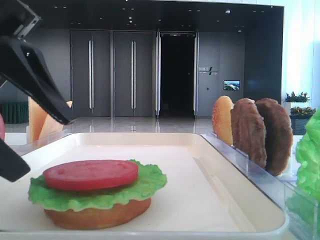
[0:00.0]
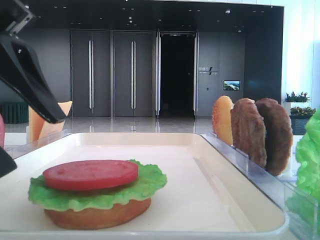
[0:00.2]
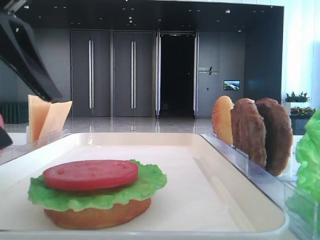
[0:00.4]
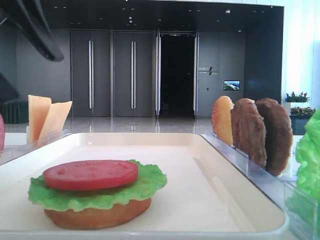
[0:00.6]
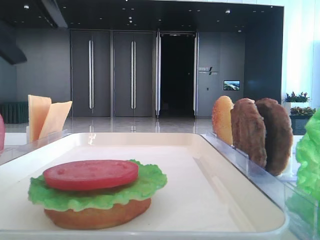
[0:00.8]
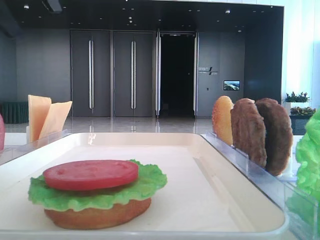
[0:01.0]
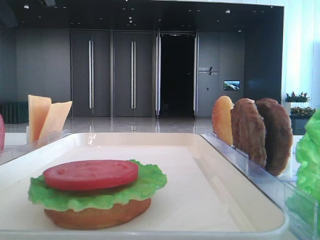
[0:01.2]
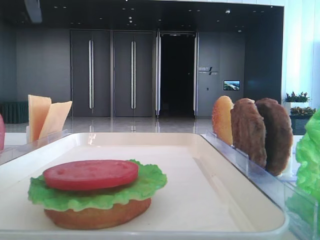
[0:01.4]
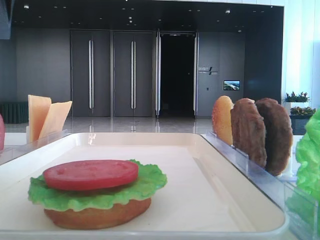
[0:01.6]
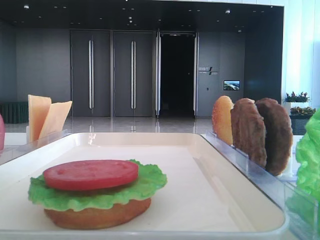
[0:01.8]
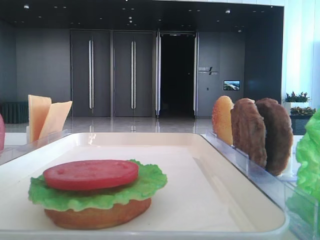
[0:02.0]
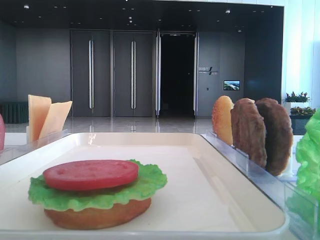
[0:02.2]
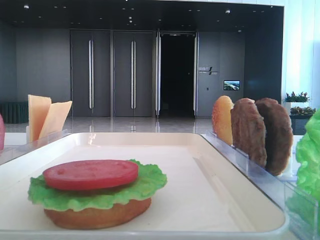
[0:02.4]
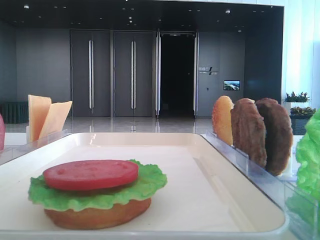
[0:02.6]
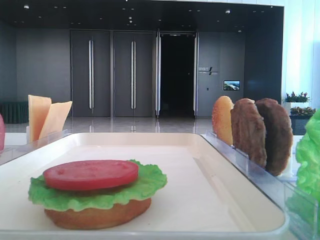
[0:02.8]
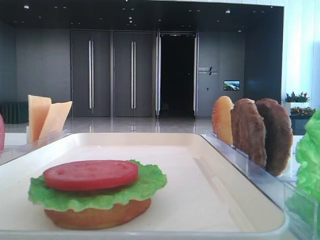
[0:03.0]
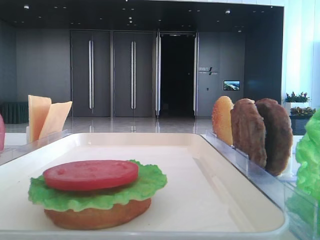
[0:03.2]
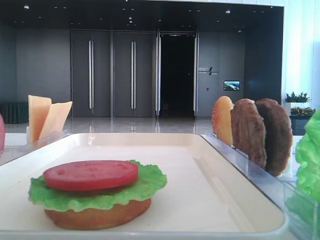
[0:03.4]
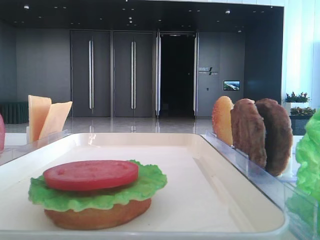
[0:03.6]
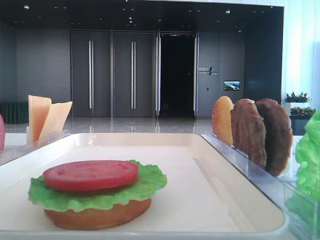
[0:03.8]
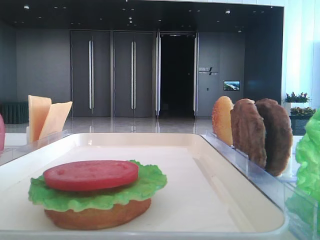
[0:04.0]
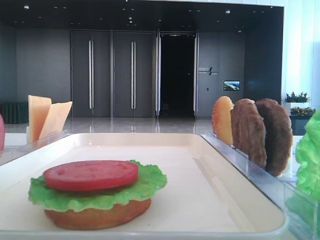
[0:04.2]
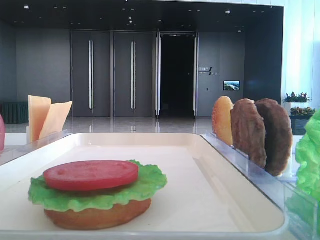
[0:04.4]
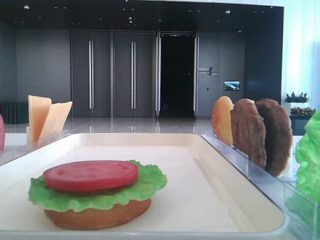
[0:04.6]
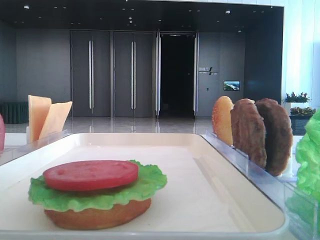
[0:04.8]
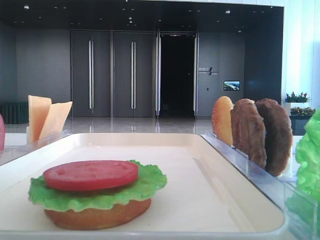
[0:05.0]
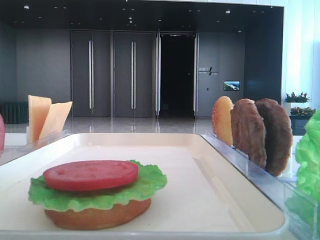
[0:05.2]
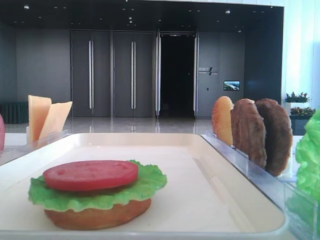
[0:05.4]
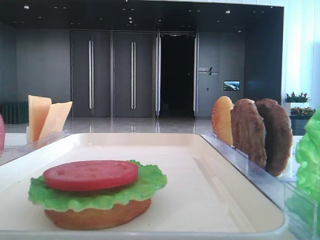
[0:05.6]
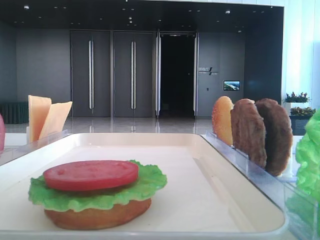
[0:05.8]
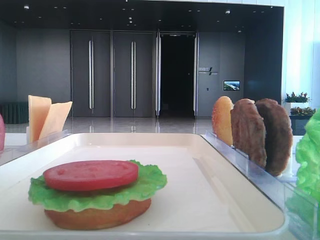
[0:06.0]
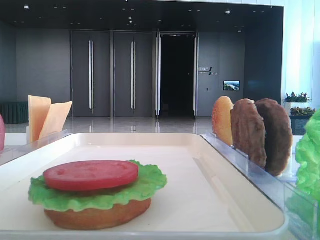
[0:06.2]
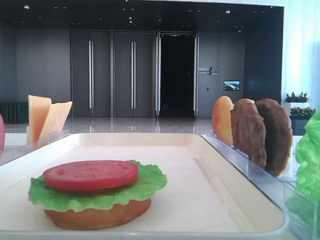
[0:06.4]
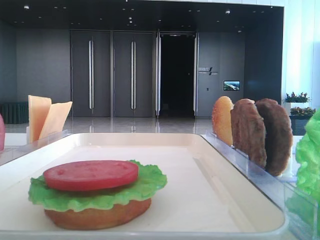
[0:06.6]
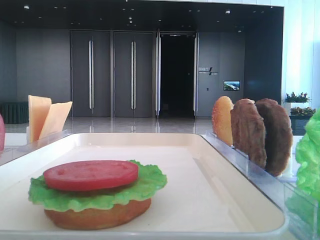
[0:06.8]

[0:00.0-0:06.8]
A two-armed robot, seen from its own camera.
0.0 to 1.4 s: The left gripper moves upward and forward, some 20 cm.

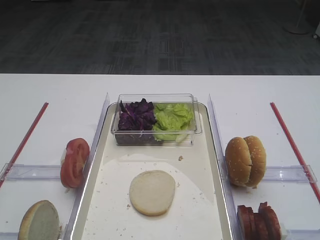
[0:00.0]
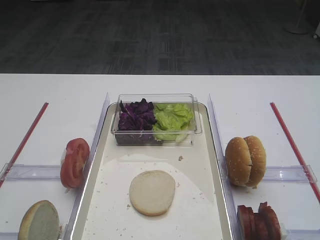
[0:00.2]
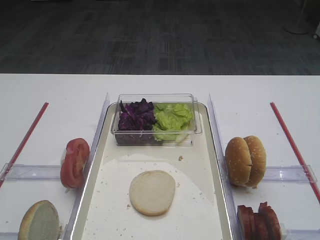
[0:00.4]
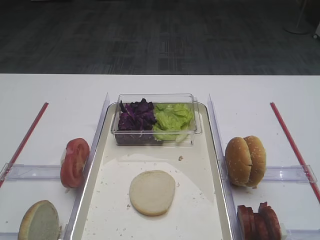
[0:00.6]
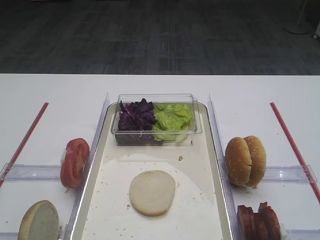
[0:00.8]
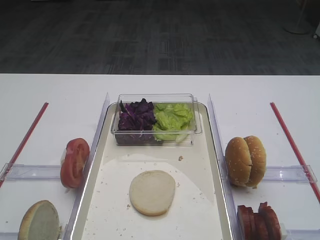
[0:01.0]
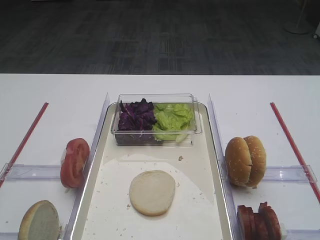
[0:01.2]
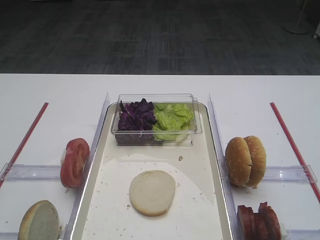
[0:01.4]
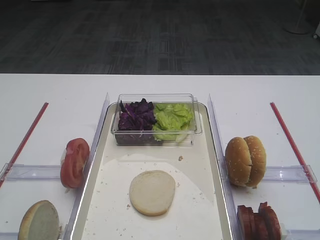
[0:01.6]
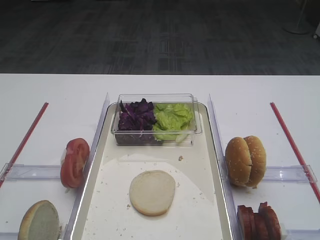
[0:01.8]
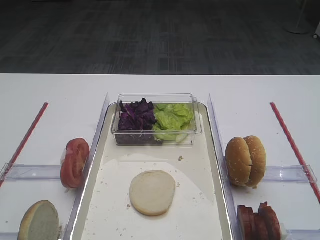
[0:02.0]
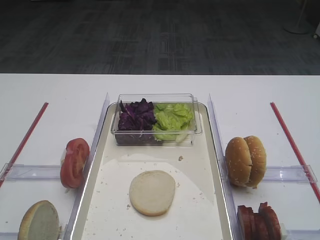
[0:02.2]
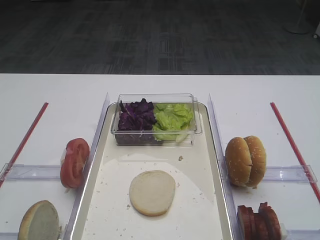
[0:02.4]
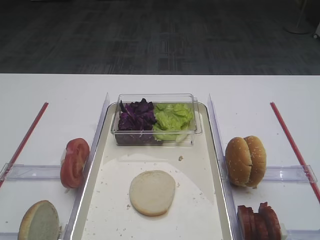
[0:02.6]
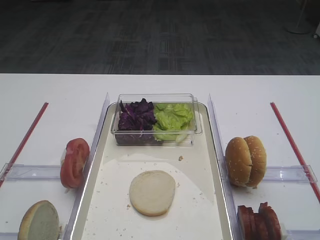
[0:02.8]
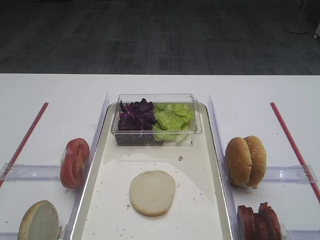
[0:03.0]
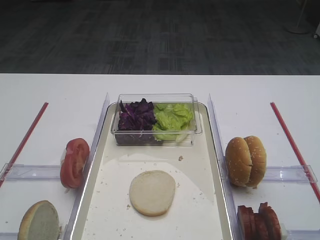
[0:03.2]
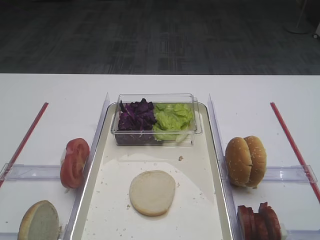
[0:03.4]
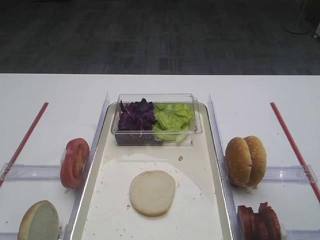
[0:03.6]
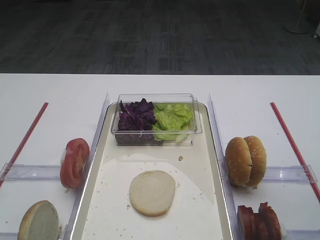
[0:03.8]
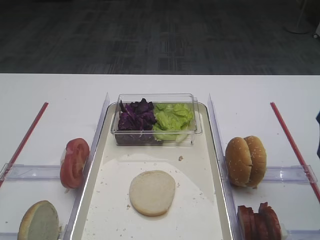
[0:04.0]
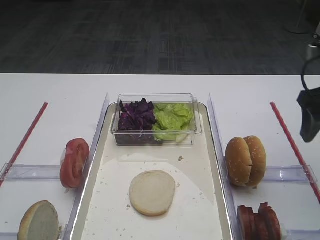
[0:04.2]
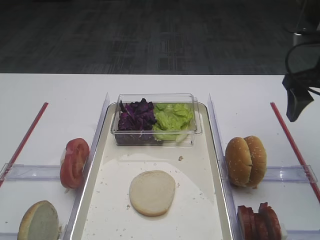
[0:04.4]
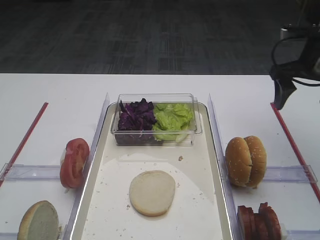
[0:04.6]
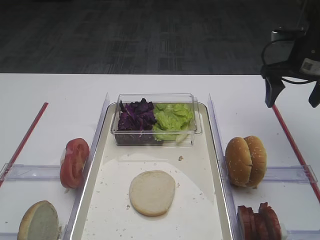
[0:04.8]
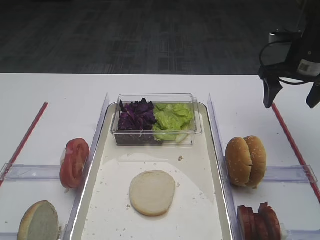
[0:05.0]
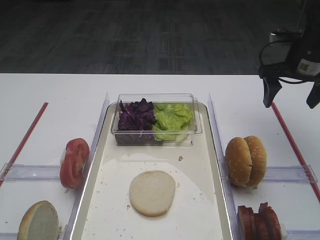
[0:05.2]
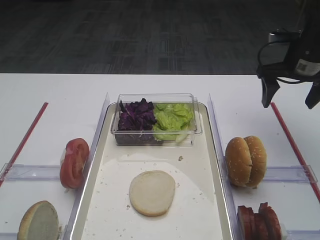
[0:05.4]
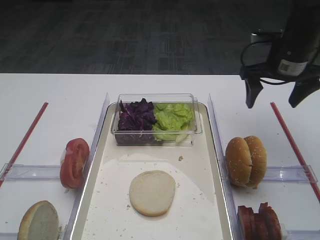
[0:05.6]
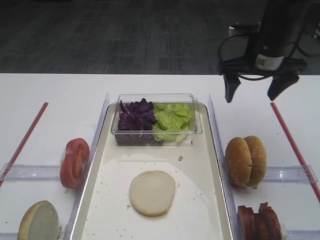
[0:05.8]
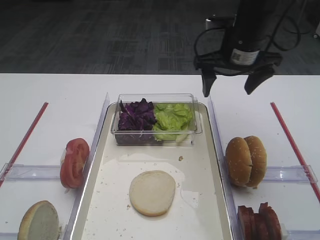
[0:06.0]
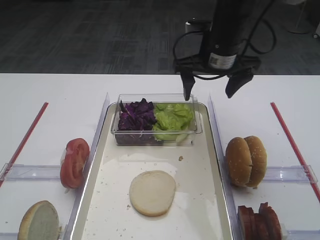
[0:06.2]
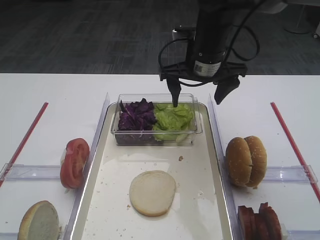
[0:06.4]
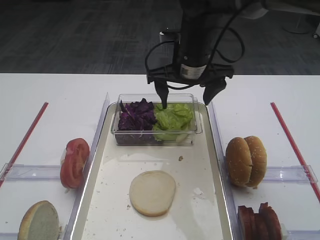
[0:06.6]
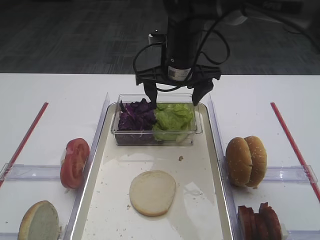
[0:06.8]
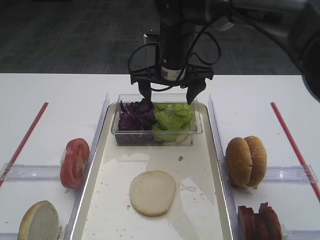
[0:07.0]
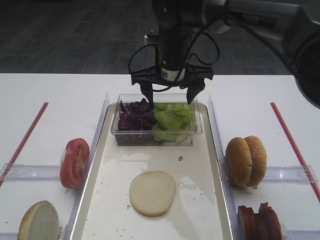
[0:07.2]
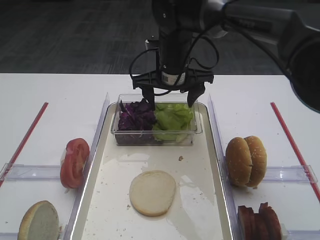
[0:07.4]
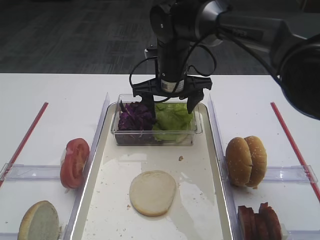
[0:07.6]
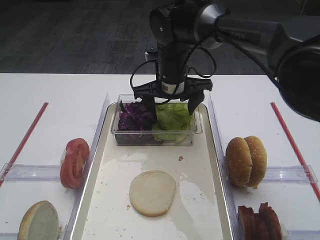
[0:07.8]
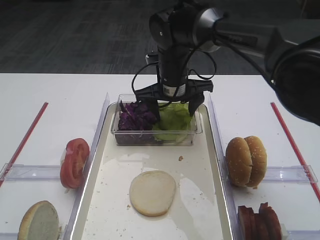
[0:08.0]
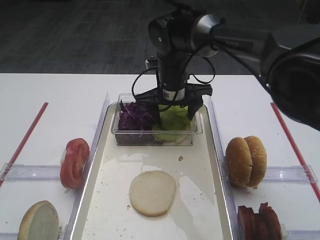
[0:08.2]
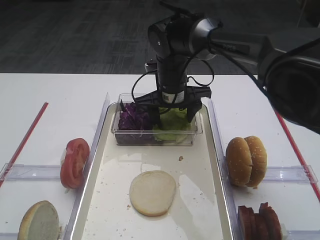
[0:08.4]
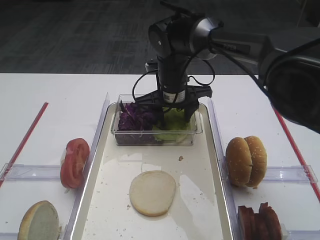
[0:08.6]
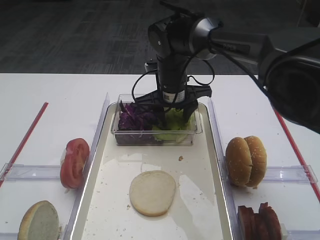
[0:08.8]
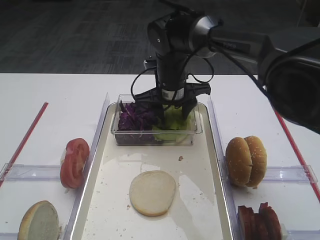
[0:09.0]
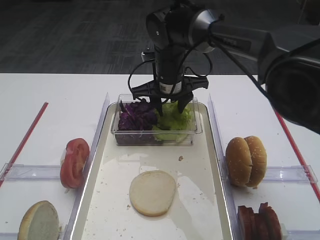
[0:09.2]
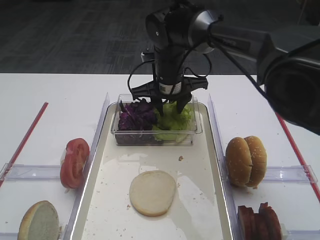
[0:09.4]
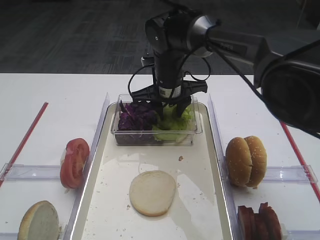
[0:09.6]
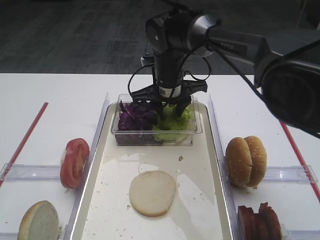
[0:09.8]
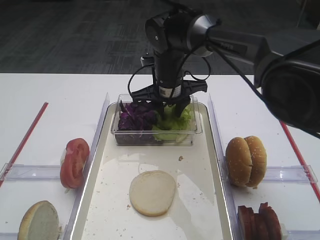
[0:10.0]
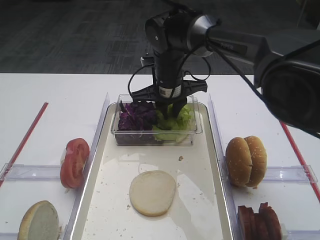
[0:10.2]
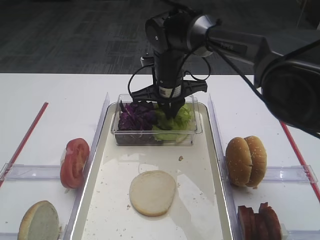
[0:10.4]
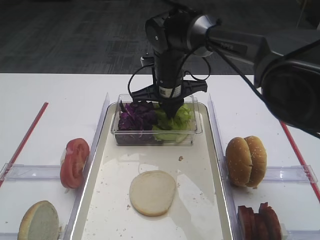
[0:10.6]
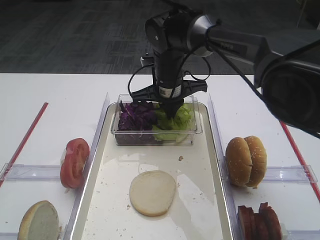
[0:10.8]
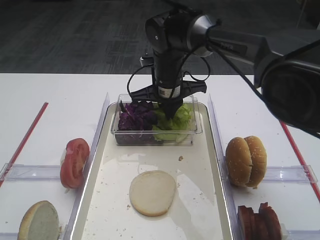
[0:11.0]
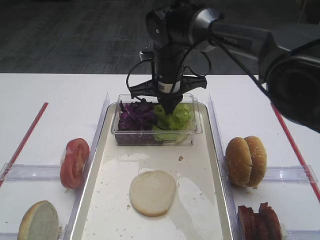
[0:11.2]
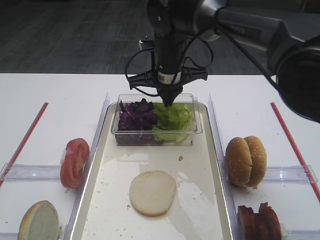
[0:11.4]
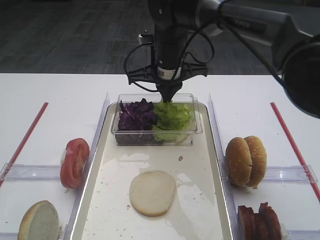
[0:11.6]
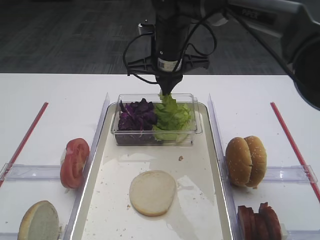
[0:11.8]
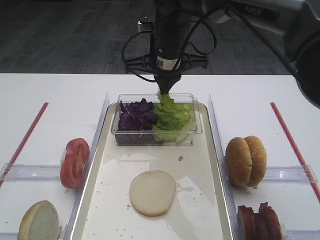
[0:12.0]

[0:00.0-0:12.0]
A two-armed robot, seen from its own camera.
3.0 to 4.4 s: The right gripper is displaced forward by roughly 25 cm.
4.4 to 6.0 s: The right gripper shifts approximately 15 cm to the left and forward.
6.0 to 7.6 s: The right gripper is displaced to the left and downward by roughly 15 cm.
7.6 to 9.0 s: The grippers make only small movements.
9.0 to 10.4 s: The right gripper closes its fingers.
10.4 to 12.0 s: The right gripper travels upward by about 5 cm.

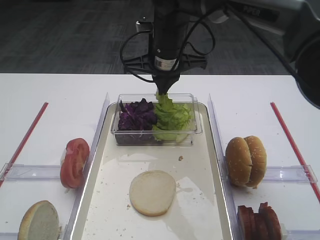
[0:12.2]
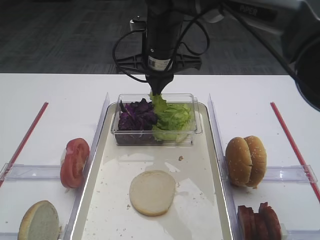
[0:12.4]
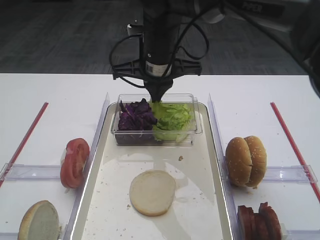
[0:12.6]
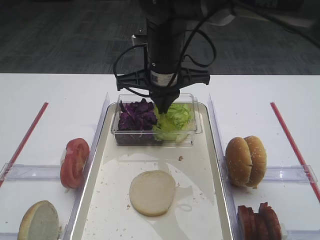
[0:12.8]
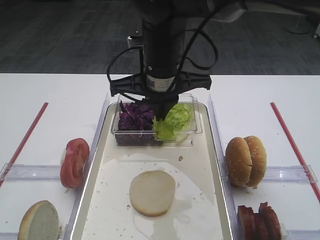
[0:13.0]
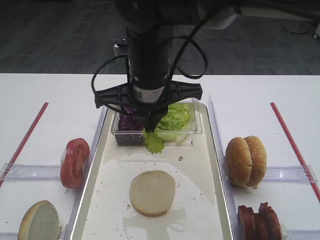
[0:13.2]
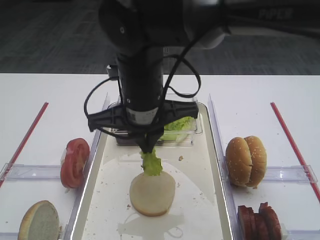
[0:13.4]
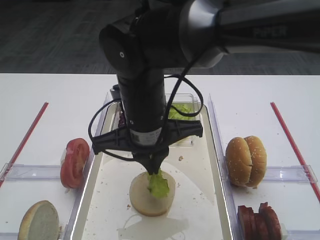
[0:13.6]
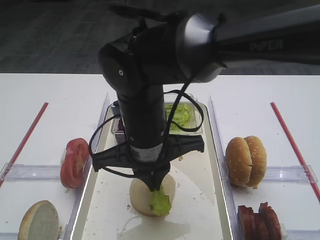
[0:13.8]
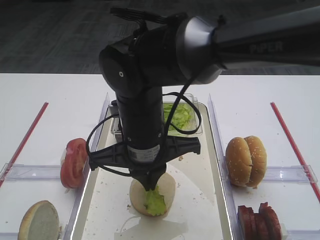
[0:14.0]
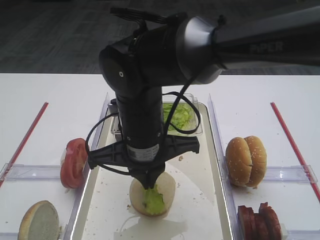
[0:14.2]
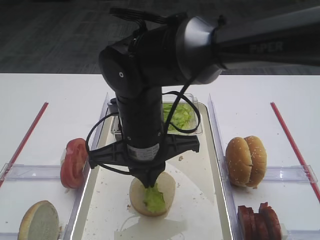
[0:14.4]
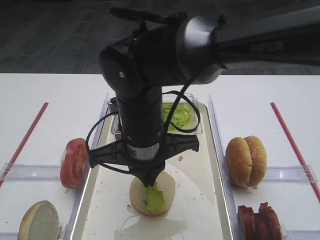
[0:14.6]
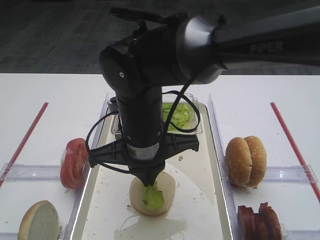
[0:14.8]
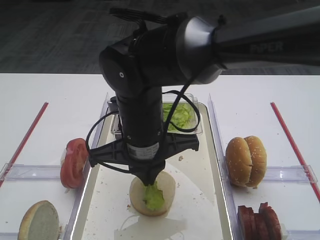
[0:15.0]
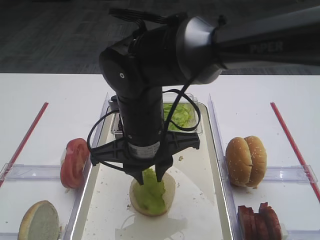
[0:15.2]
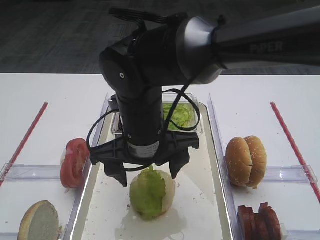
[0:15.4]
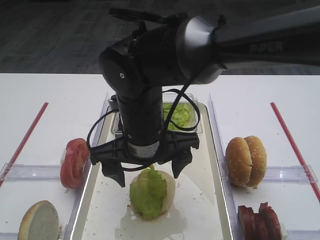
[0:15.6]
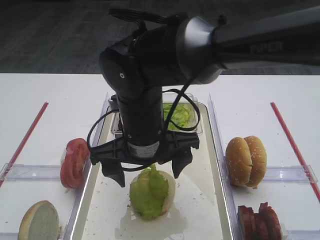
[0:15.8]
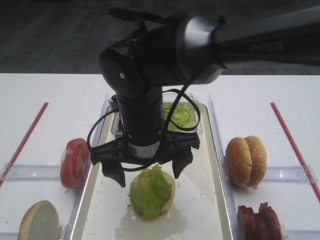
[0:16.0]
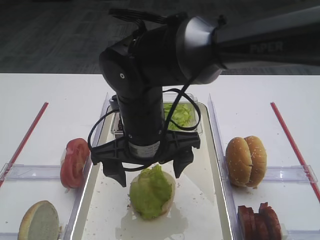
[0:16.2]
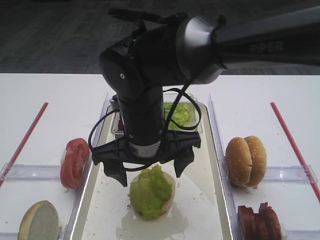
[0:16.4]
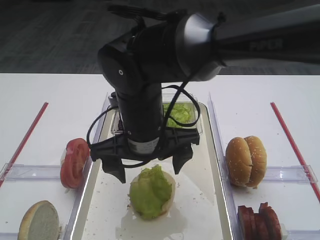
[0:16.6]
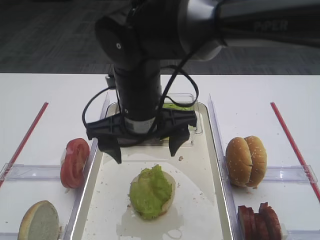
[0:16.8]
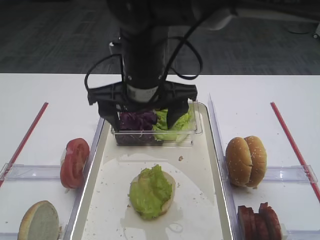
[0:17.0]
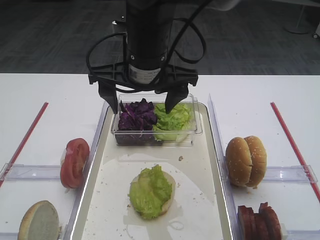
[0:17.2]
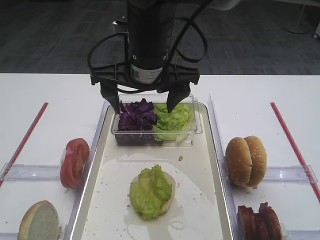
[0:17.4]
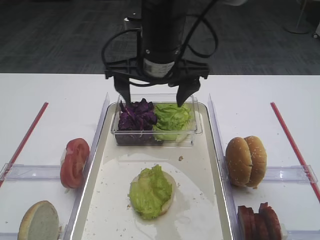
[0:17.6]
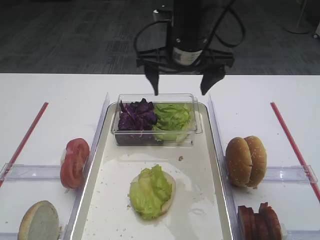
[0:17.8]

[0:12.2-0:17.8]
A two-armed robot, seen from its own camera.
Step, 12.6 to 16.8 s: Place the lettuce leaf on the bread slice with the right gripper.
12.2 to 13.6 s: The right gripper is displaced backward by roughly 15 cm.
13.6 to 15.0 s: There are only small adjustments of the grippers.
15.0 to 16.4 s: The right gripper opens its fingers.
16.4 to 17.8 s: The right gripper goes approximately 15 cm forward, upward and to the right.
